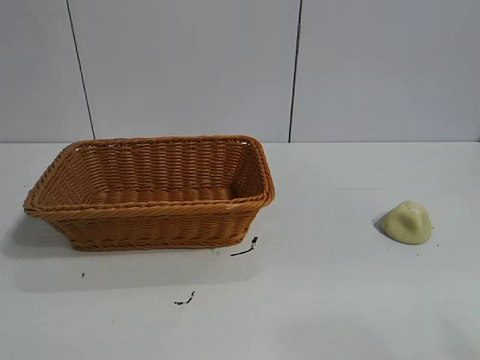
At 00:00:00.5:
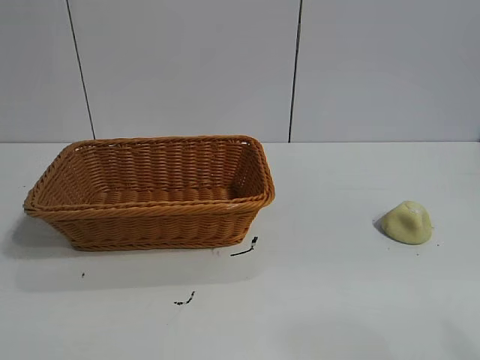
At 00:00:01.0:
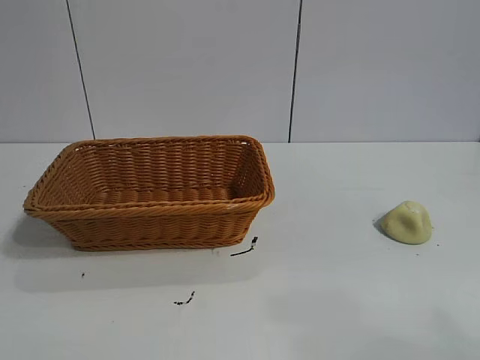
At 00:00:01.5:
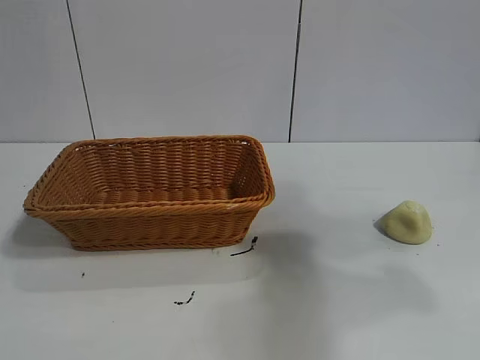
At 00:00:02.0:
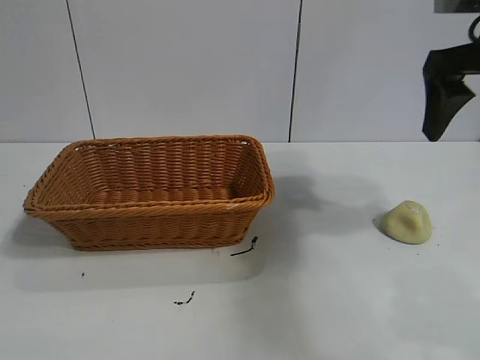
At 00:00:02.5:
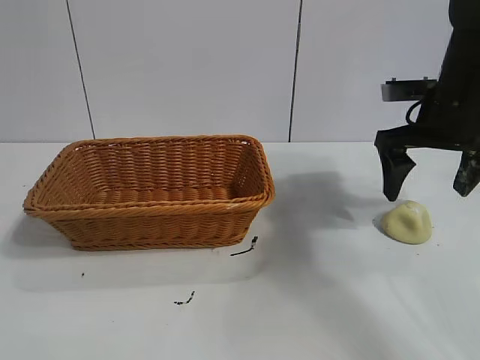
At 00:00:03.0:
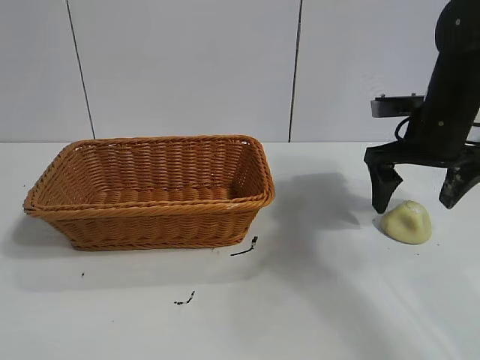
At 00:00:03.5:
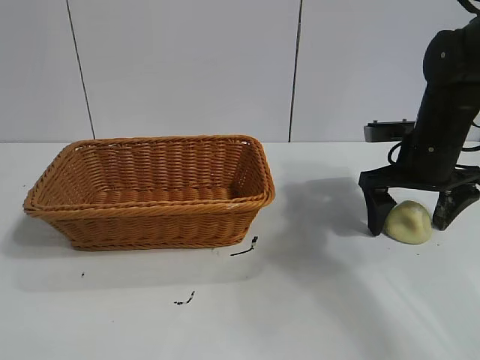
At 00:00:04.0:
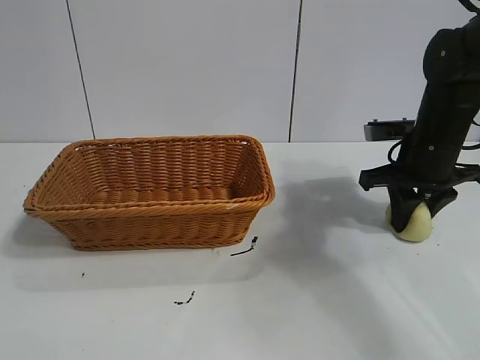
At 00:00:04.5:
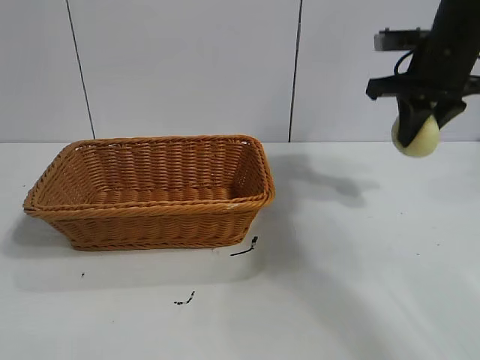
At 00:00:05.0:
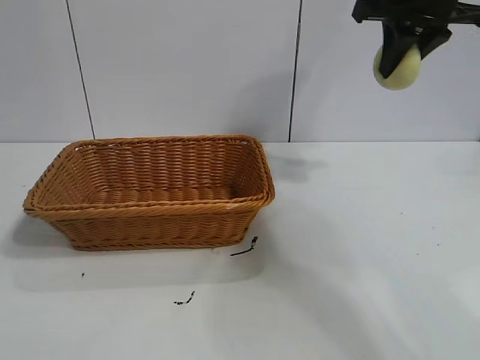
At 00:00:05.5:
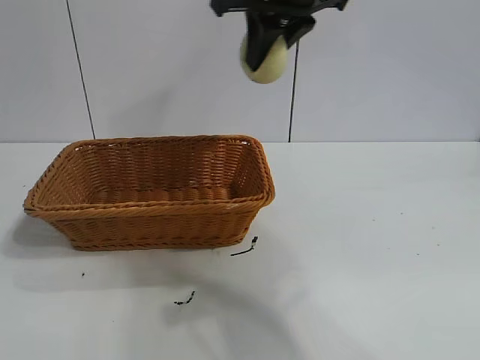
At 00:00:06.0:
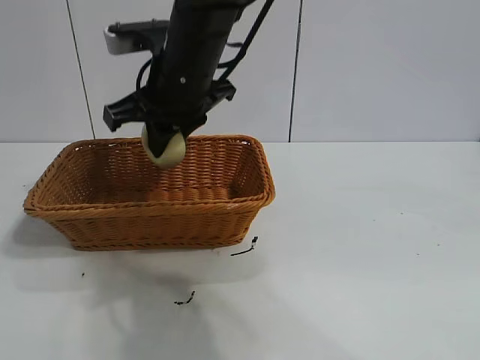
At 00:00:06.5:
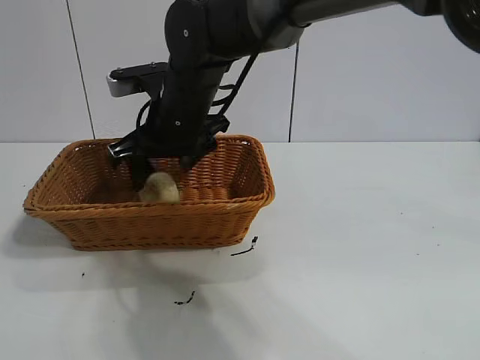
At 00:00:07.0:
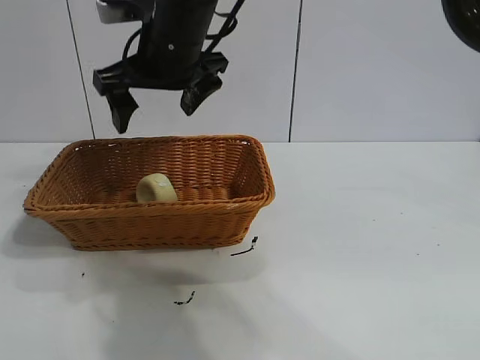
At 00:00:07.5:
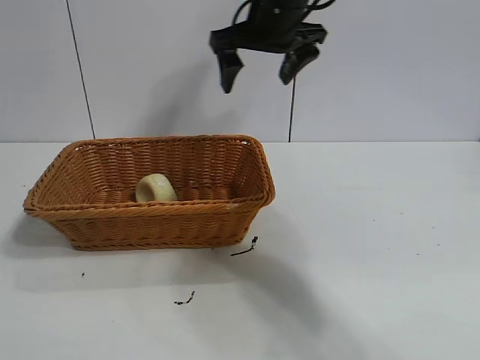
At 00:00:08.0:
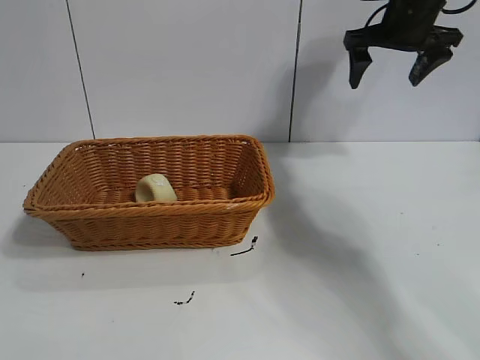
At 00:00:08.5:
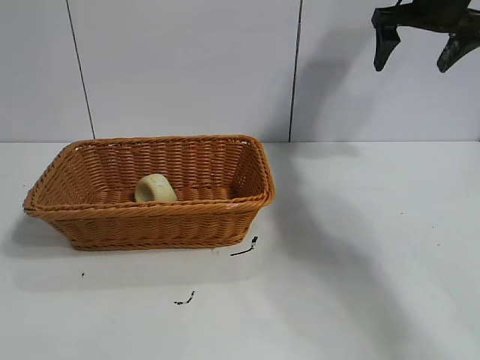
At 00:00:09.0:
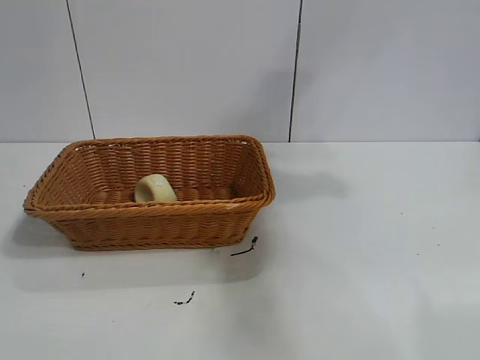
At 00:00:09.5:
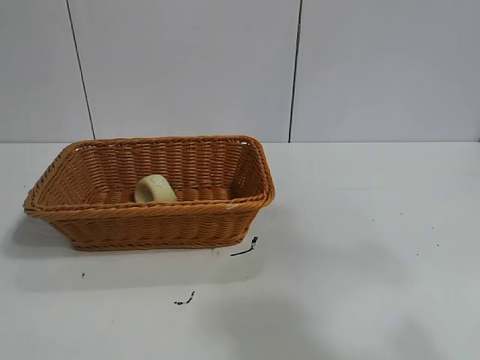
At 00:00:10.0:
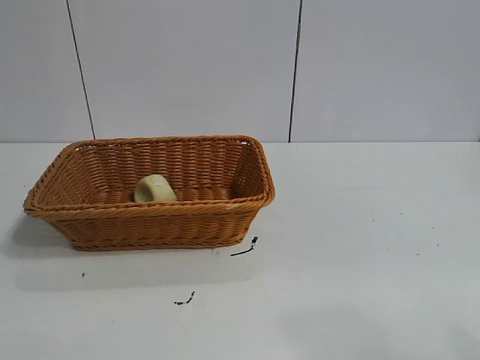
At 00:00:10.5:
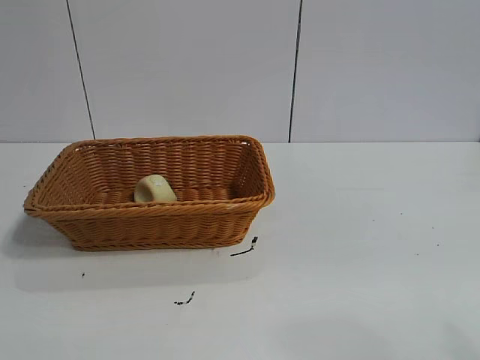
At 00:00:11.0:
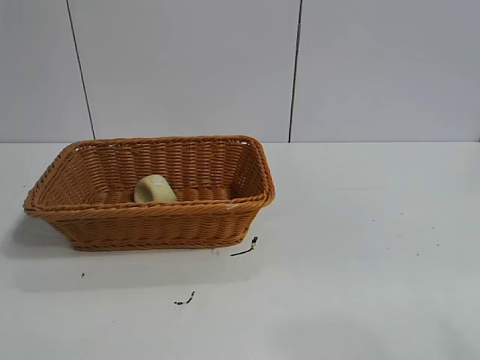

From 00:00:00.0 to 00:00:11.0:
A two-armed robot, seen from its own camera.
Task of the whole recording: pick up the egg yolk pastry and put it into the basket.
Step, from 00:00:01.0 to 00:00:04.0: Grasp egg yolk pastry with right gripper.
Step, from 00:00:04.5 to 00:00:06.5: Place the egg yolk pastry in the basket with right gripper.

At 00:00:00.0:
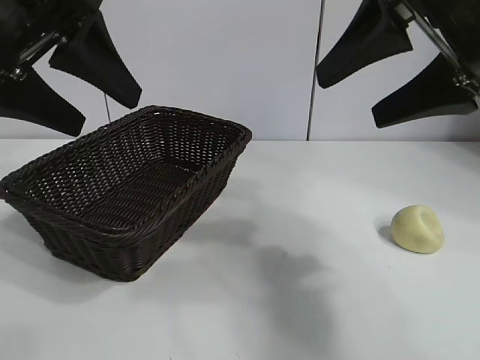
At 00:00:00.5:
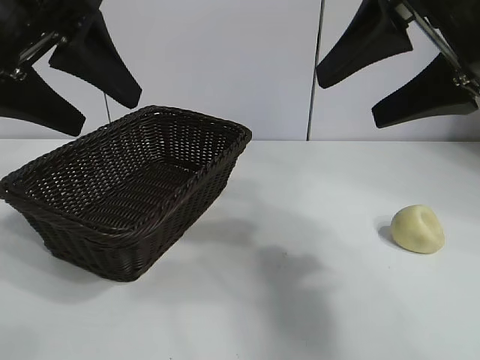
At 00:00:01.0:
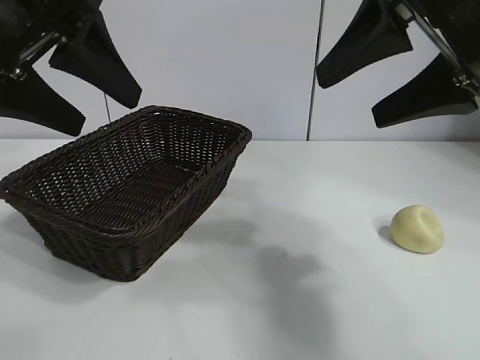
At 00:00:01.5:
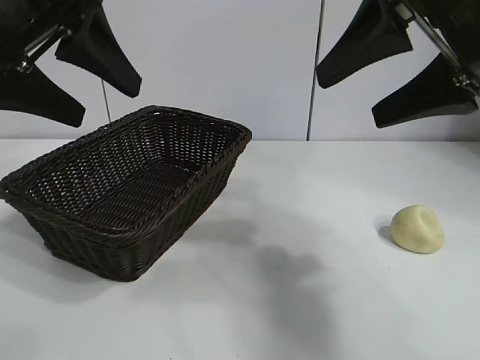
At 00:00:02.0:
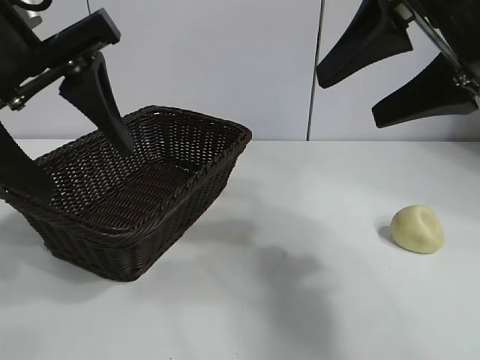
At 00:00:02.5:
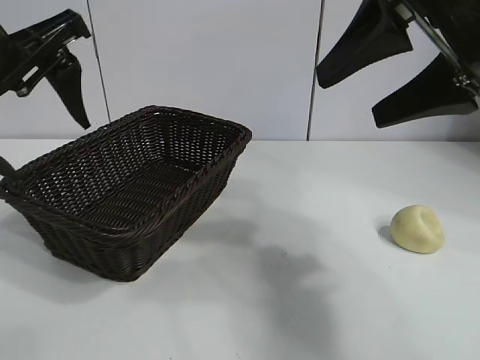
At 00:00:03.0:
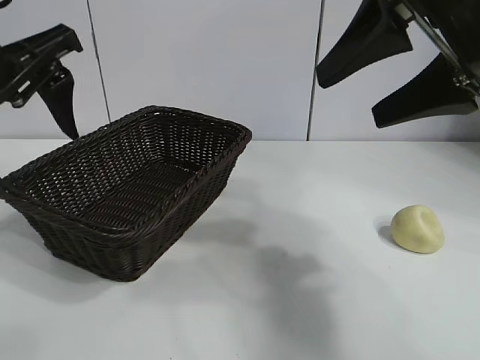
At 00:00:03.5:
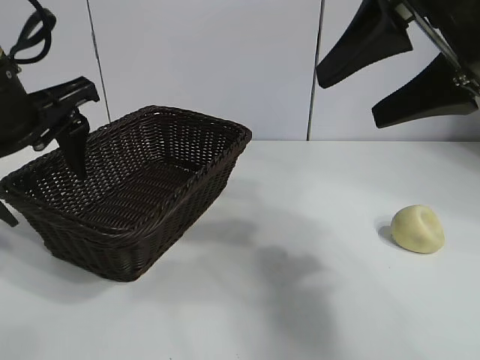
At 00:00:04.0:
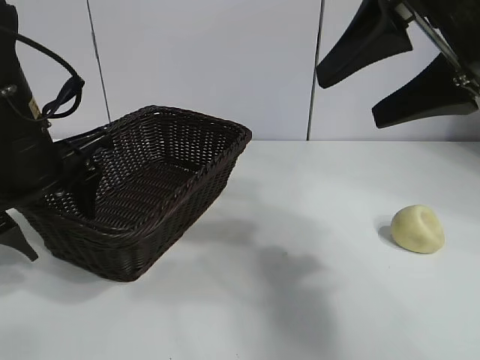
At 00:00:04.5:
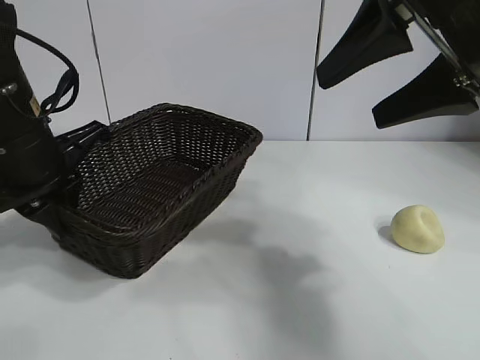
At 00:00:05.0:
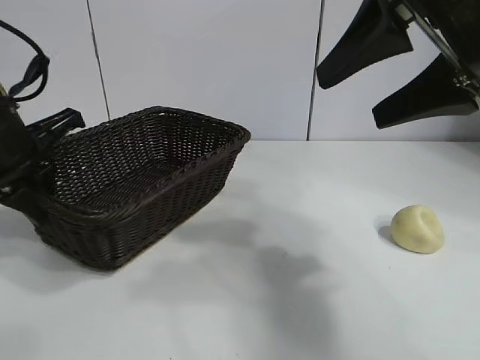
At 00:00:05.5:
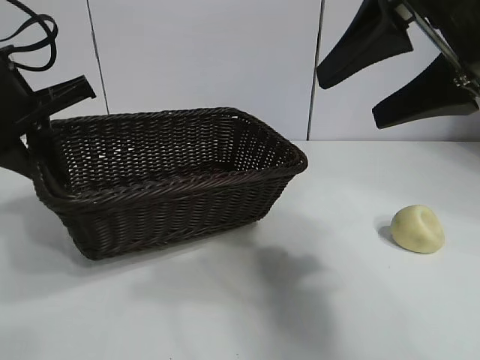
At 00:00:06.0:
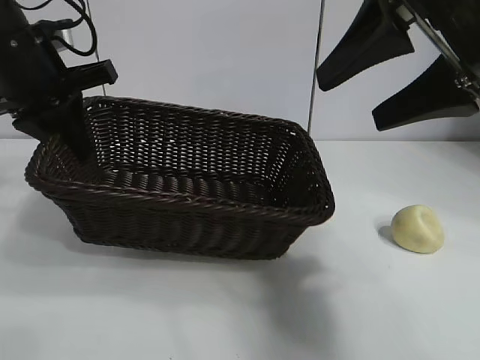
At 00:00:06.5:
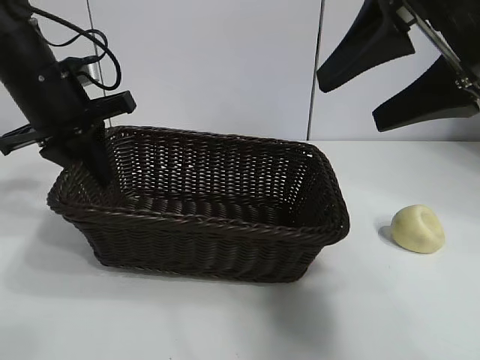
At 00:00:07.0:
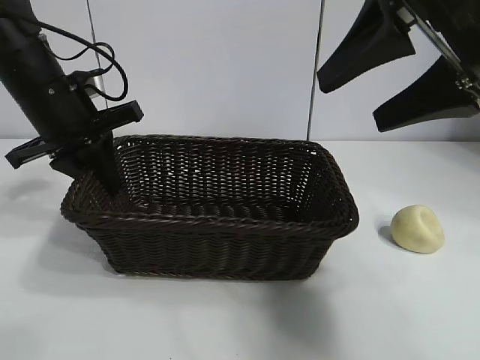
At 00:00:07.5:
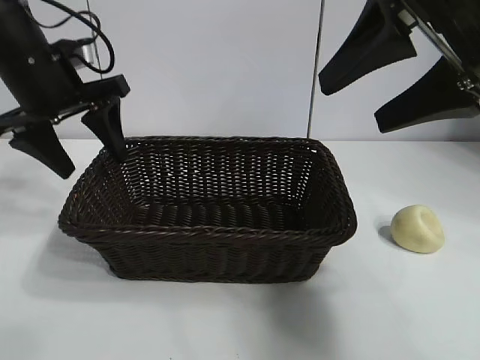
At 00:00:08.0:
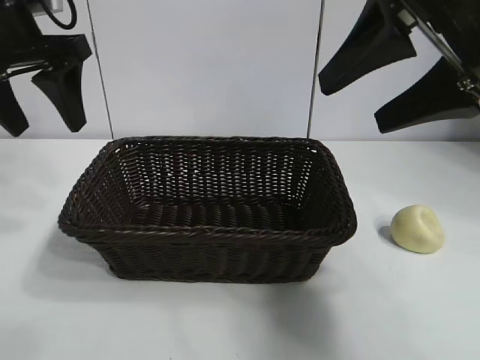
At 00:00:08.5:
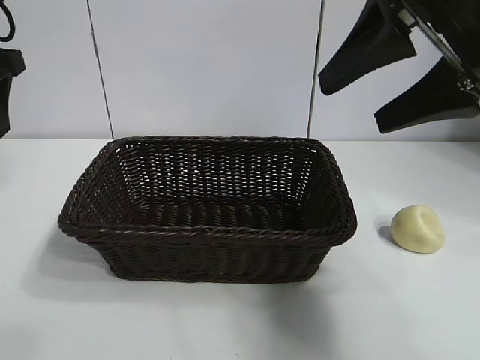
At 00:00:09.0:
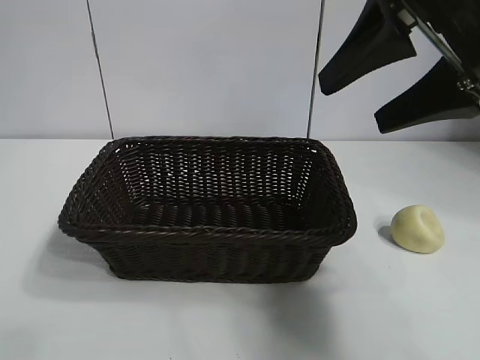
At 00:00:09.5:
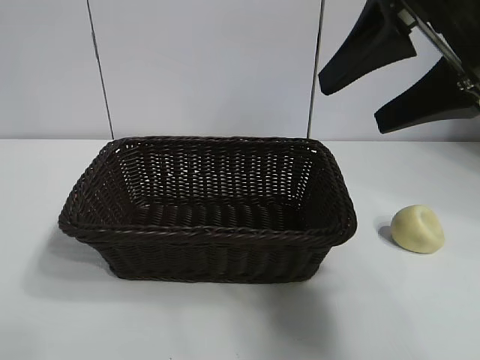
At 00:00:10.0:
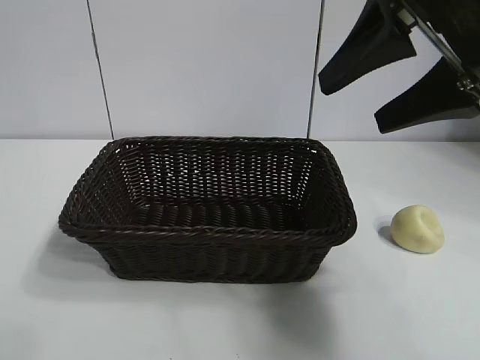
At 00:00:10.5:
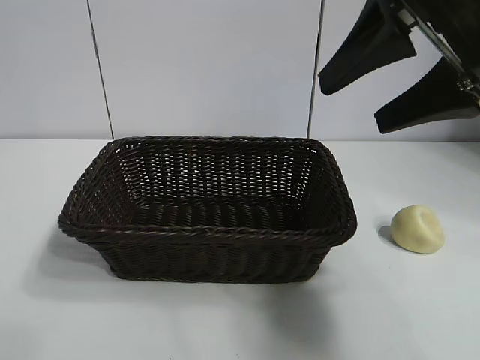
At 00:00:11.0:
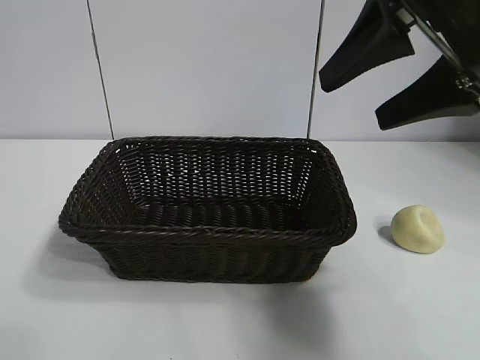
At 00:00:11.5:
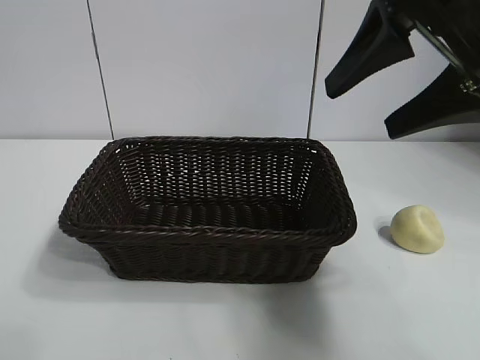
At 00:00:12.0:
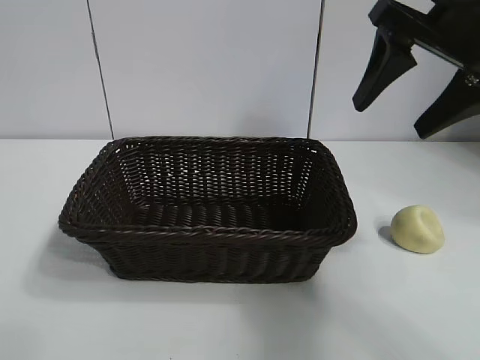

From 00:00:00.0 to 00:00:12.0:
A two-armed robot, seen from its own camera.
Task of the whole recording: pick up the egg yolk pastry and put it into the basket.
Step, from 00:00:01.5 to 00:00:04.0: Grasp the basket with left gripper.
Step, from 00:00:05.0 to 00:00:07.0: Place the basket in the center of view with left gripper.

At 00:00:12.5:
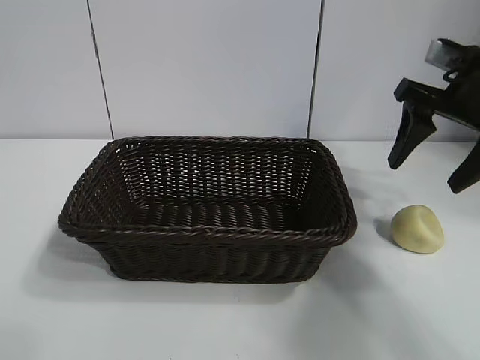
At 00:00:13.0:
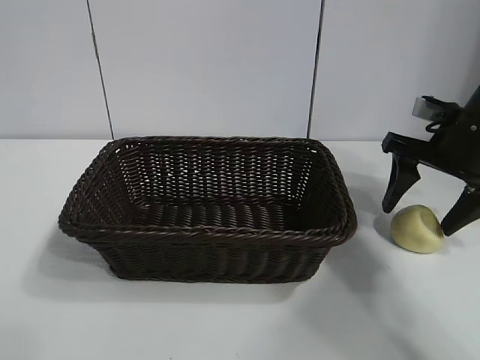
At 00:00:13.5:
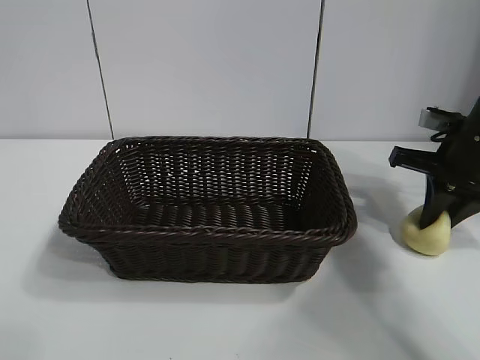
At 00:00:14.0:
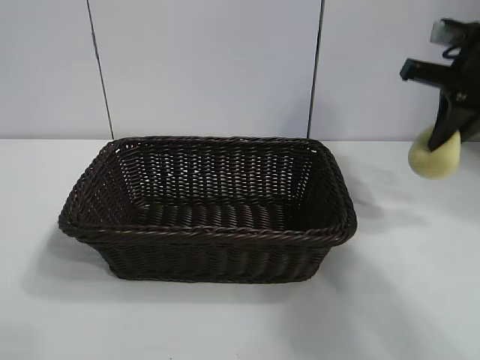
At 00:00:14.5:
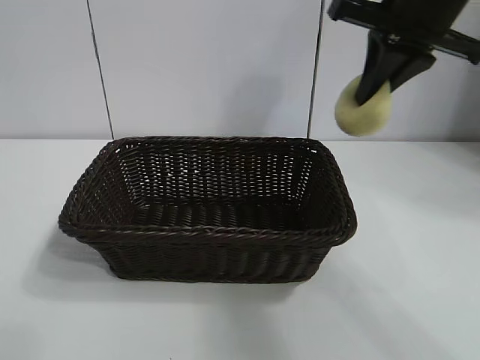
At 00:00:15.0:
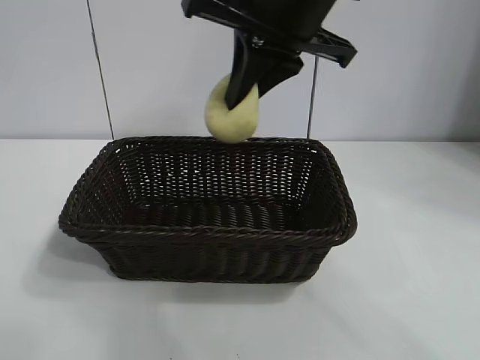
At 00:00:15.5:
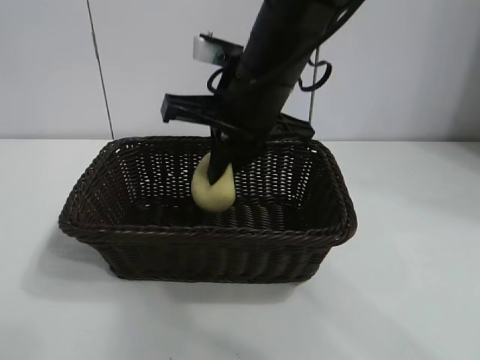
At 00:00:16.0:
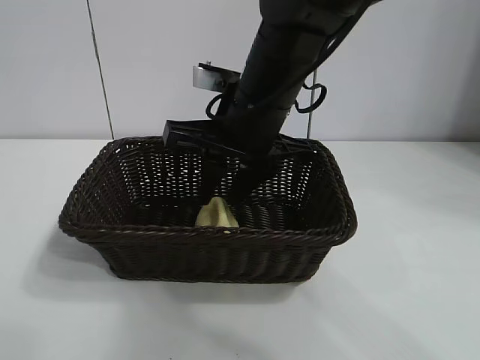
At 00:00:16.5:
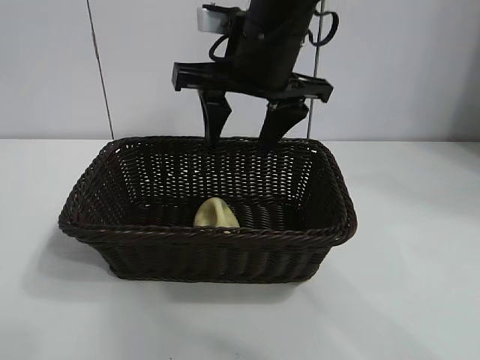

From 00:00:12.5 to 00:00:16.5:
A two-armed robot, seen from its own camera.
Task of the whole recording: pick up the egg yolk pastry and put it into the basket.
Step, from 00:00:14.0 to 00:00:16.0: Place the egg yolk pastry in the basket with right gripper.
